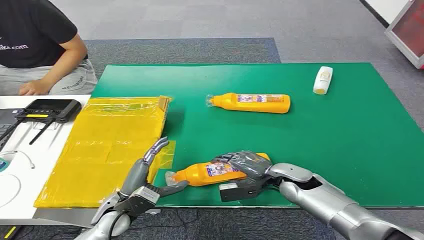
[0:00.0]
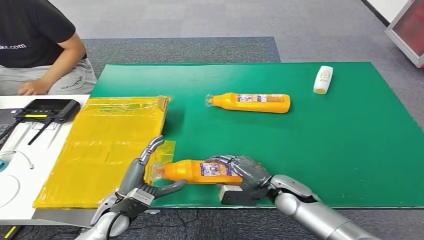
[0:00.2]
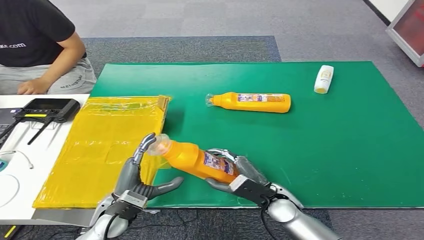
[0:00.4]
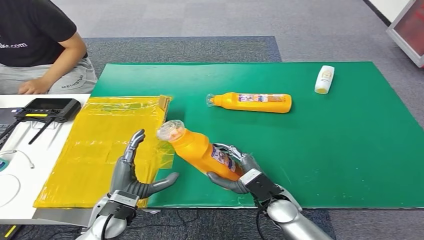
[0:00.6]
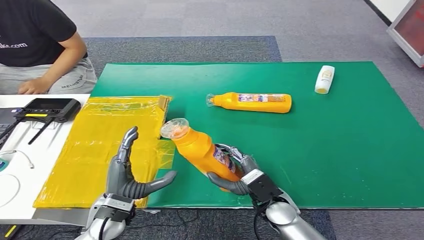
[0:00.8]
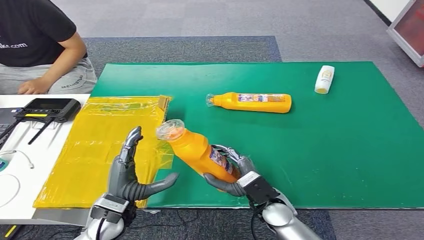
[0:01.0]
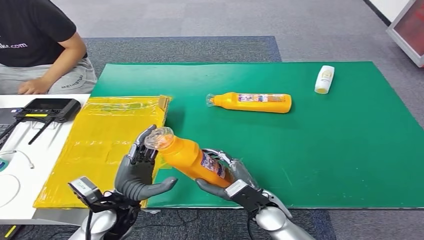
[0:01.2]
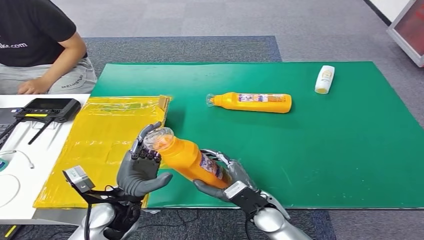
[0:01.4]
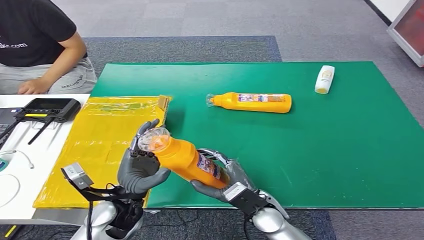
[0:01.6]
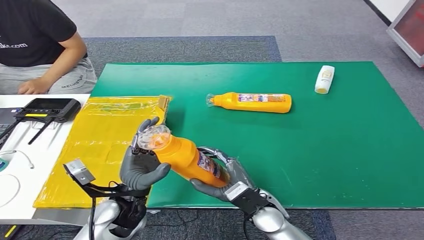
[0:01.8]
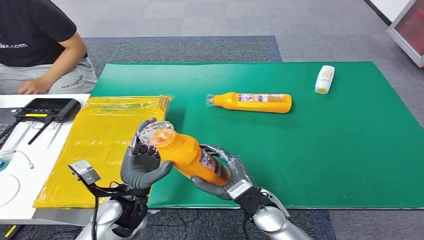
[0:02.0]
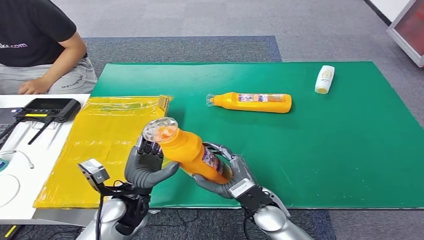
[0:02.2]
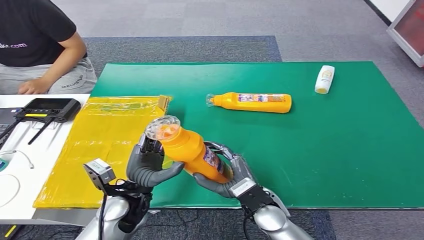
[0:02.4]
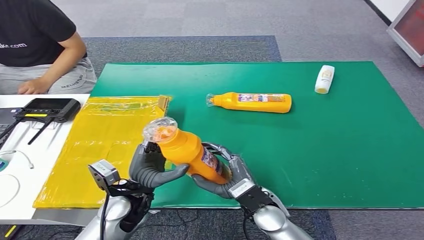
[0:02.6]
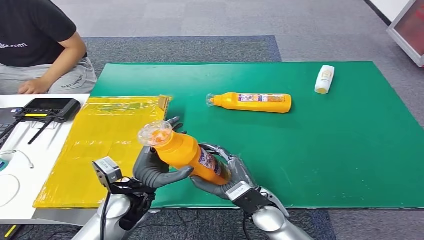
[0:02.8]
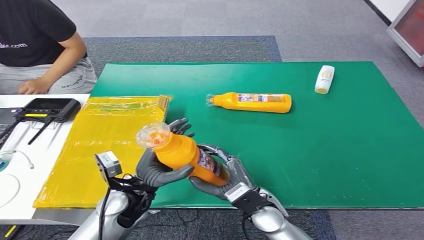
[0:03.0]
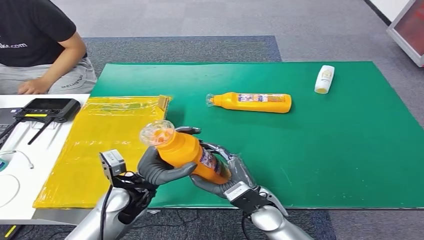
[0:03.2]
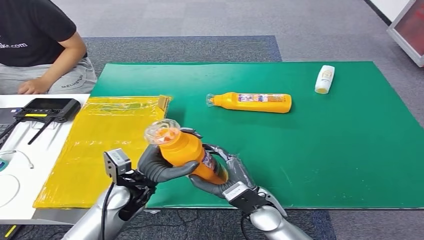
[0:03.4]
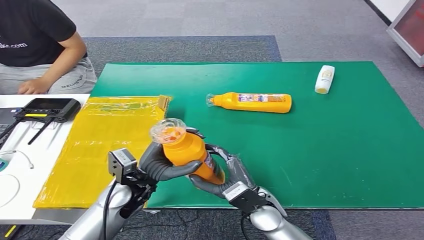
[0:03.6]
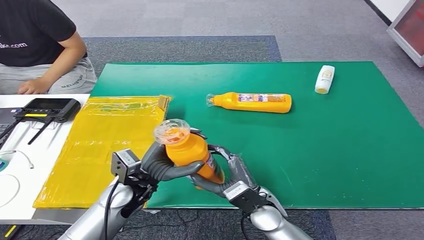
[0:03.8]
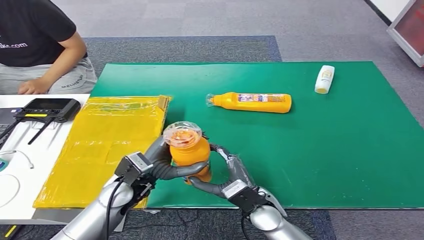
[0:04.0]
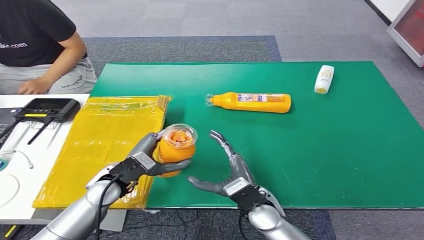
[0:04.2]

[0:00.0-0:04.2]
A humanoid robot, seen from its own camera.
Step, 0:00.0 to 0:02.2: Pick up the bottle from the table.
Step, 0:02.4 to 0:04.2: Turn the bottle to the front side.
0:01.4 to 0:02.8: The hands stay close to where they were, moving slightly.
0:02.8 to 0:04.2: The left hand moves about 5 cm.
